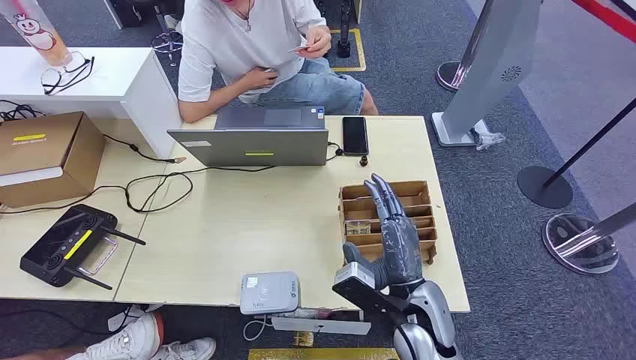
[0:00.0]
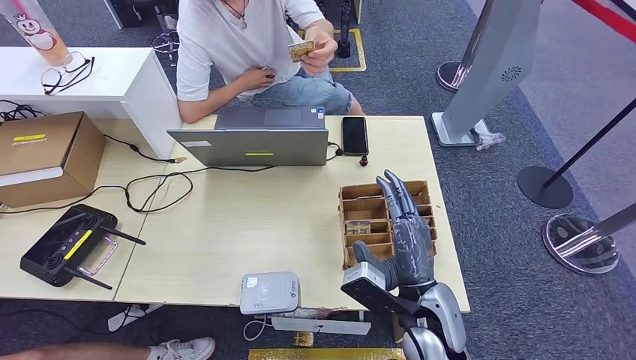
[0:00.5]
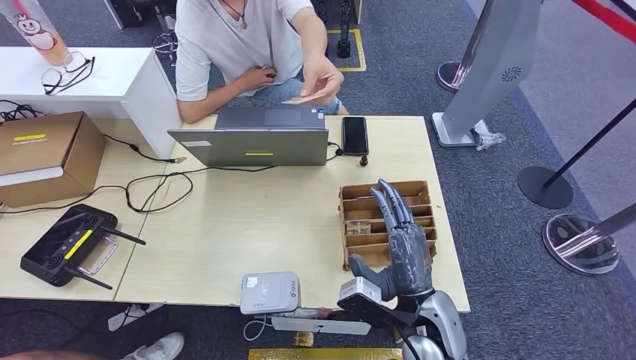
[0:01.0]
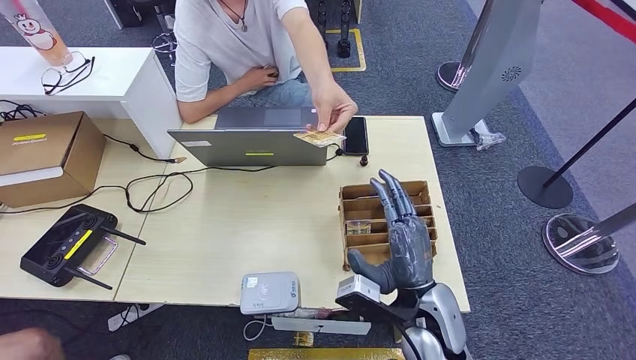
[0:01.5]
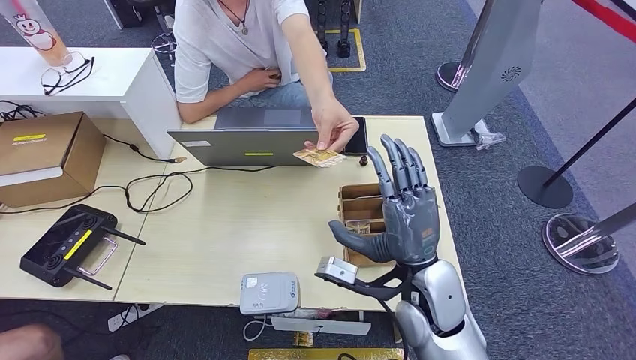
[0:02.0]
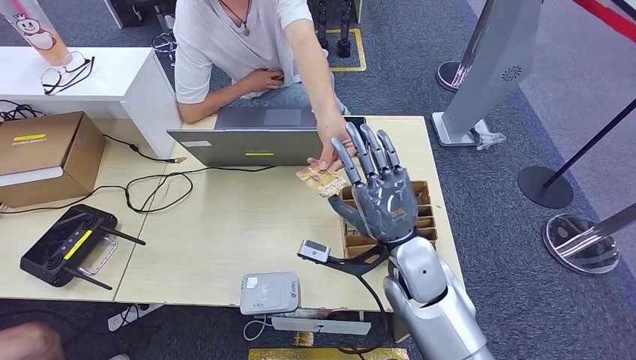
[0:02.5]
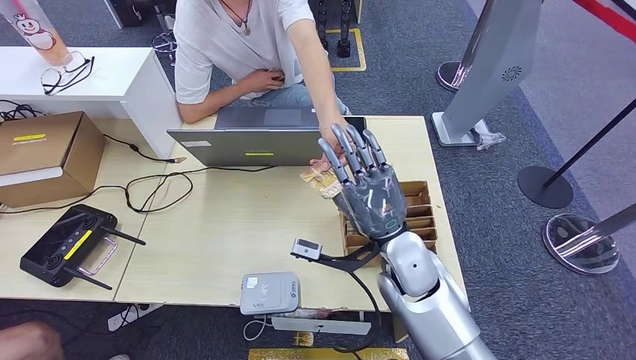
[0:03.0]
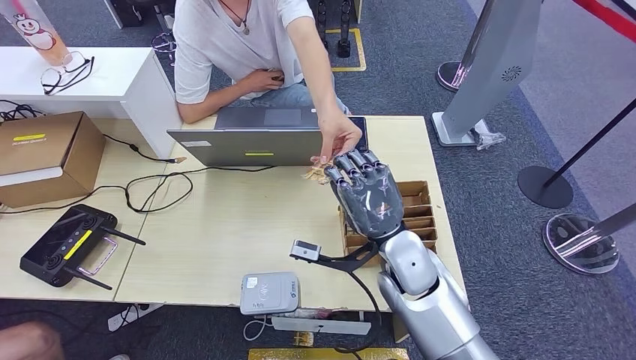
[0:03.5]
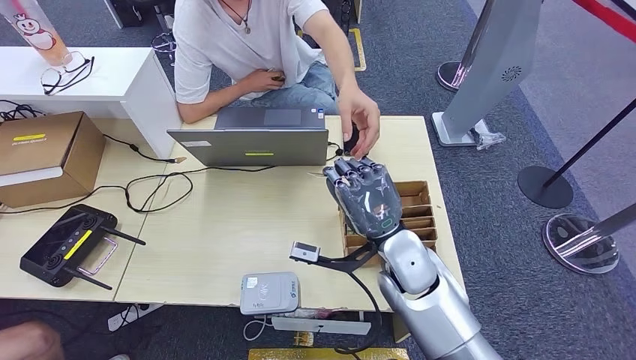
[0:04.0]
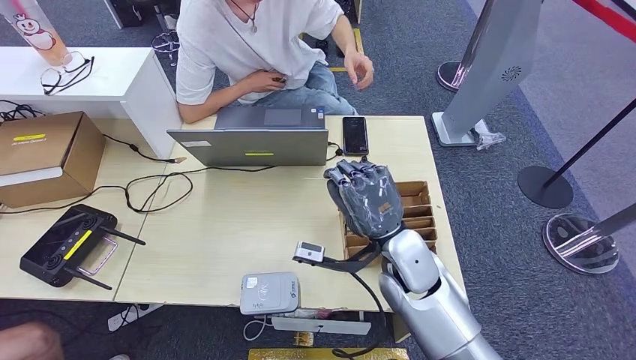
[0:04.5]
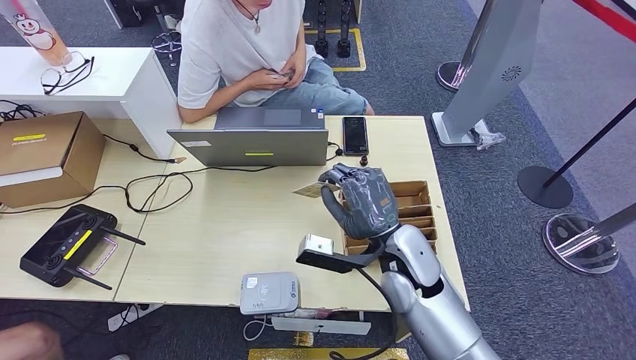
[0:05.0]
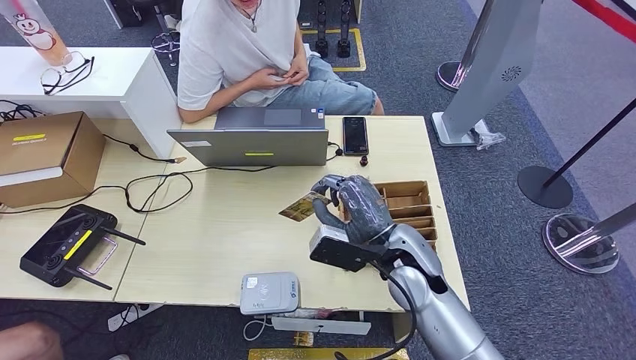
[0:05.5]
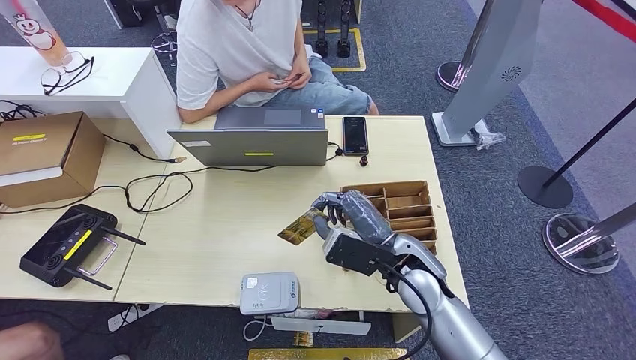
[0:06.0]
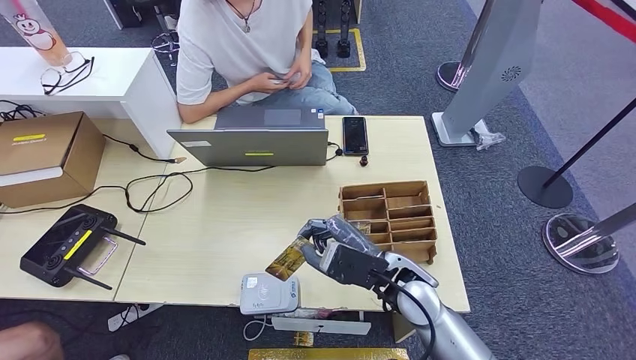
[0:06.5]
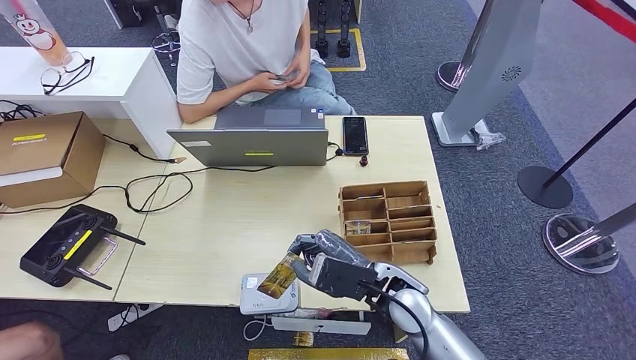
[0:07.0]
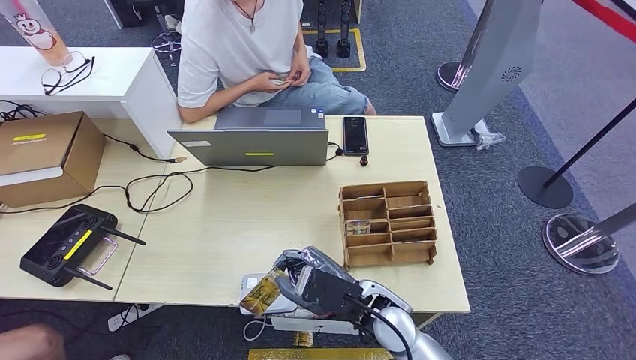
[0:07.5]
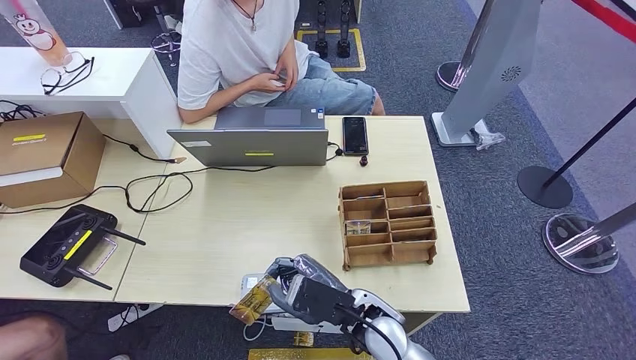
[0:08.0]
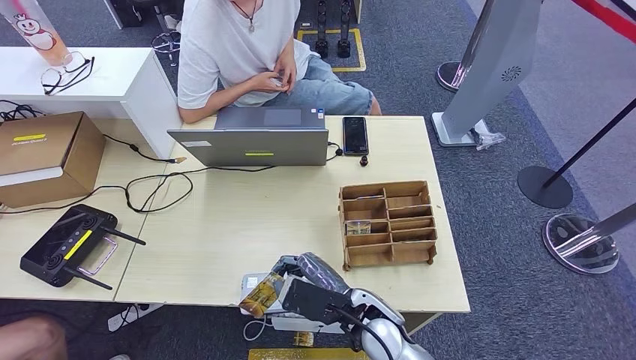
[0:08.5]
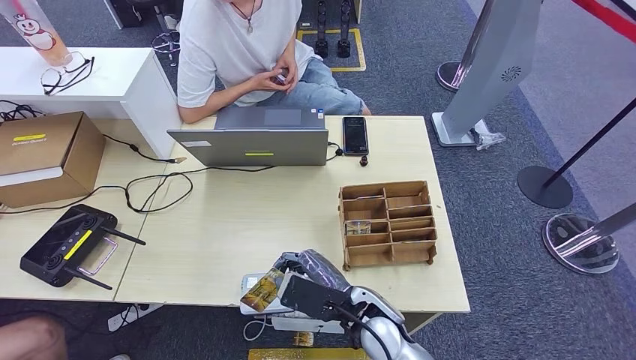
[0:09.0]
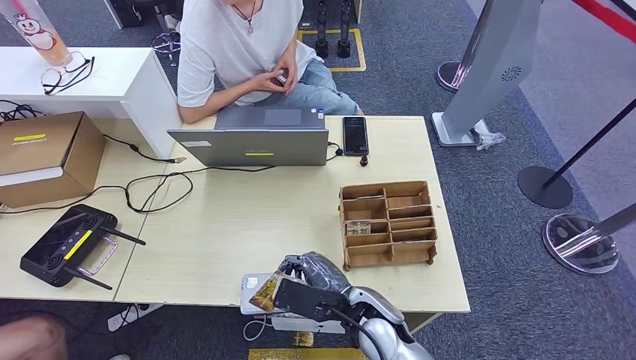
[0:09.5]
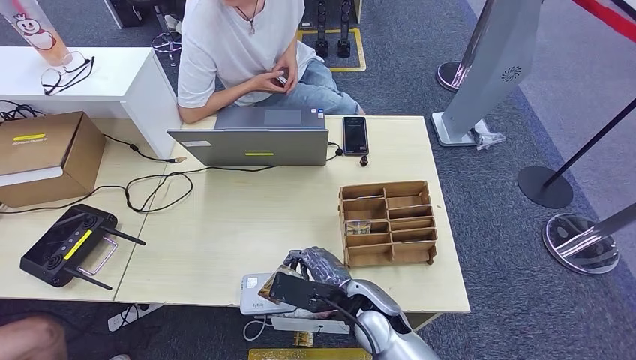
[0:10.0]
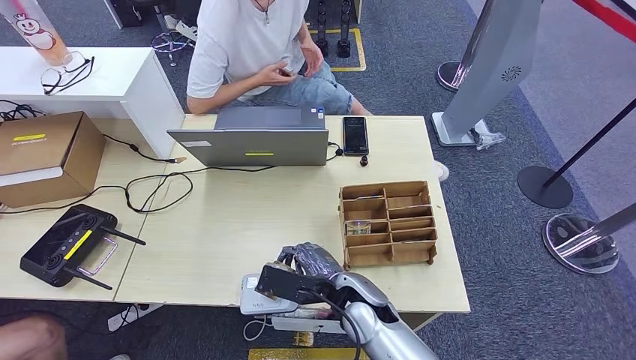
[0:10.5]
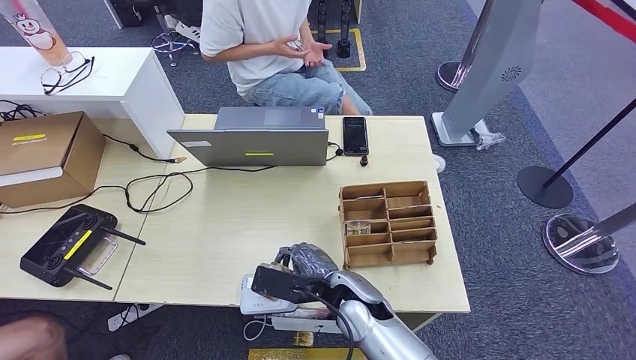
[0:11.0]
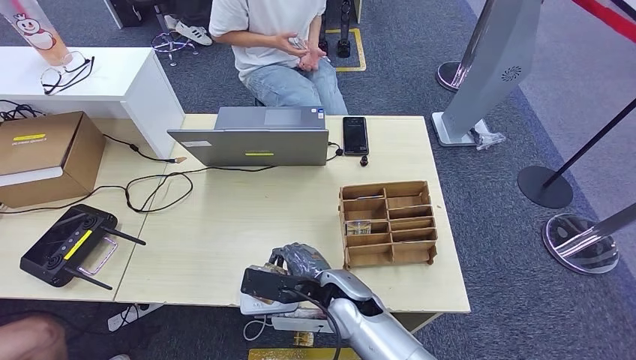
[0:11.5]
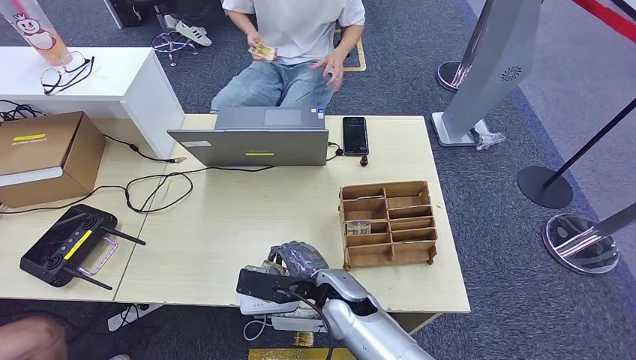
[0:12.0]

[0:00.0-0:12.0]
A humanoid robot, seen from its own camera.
Step, 0:00.0 to 0:04.0: Take the ID card from the person's hand.
0:02.0 to 0:04.0: The right hand shifts some 5 cm forward.
0:06.0 to 0:08.0: The right hand shifts approximately 10 cm backward, to the left and downward.
0:10.0 to 0:12.0: The right hand moves roughly 5 cm.

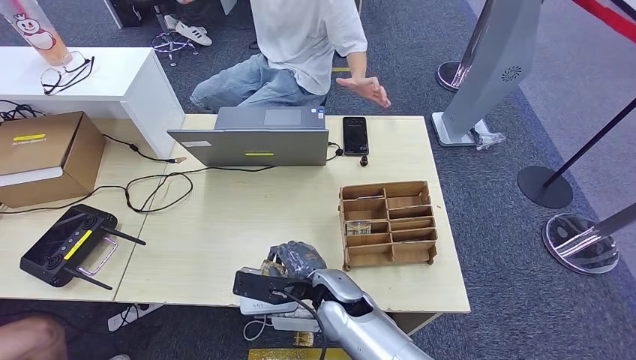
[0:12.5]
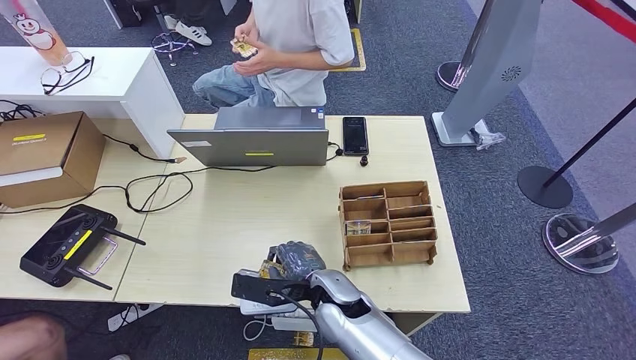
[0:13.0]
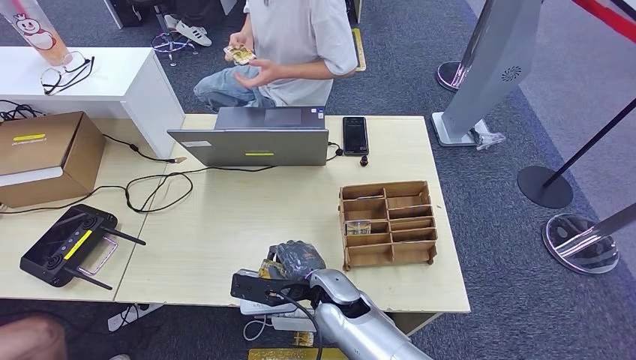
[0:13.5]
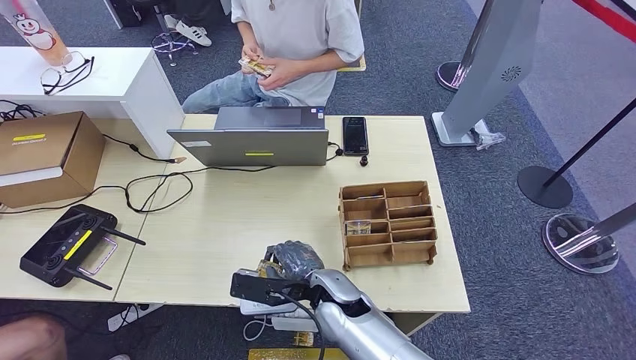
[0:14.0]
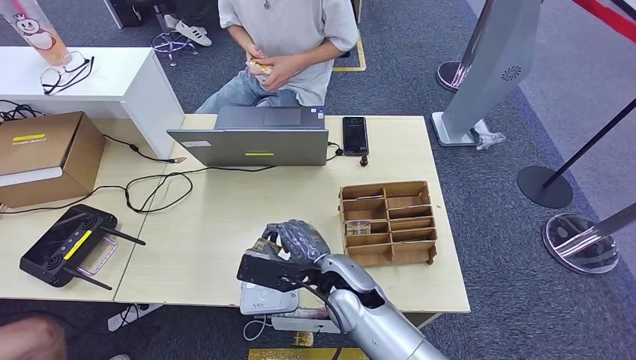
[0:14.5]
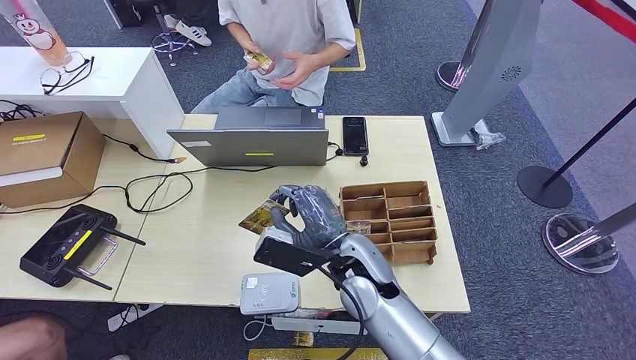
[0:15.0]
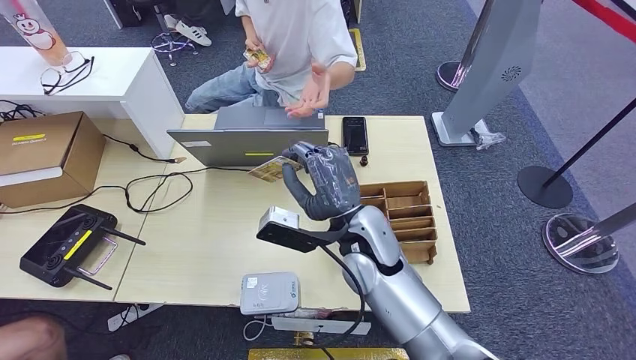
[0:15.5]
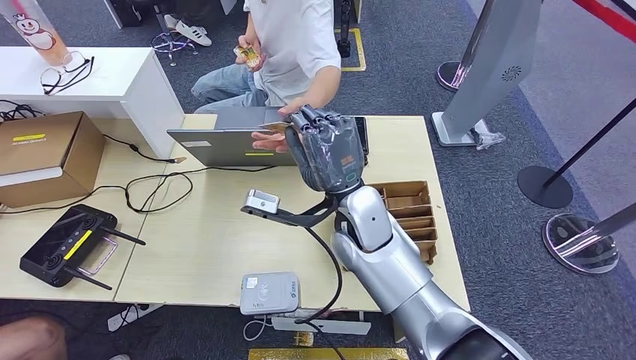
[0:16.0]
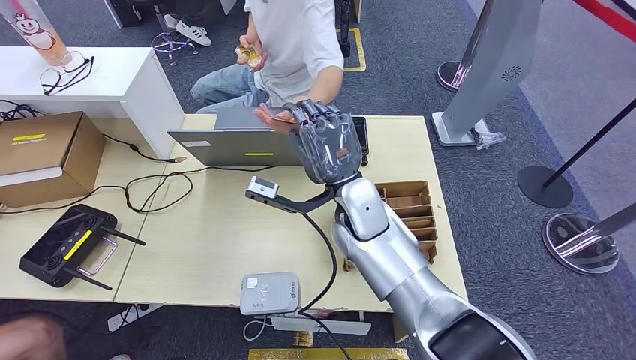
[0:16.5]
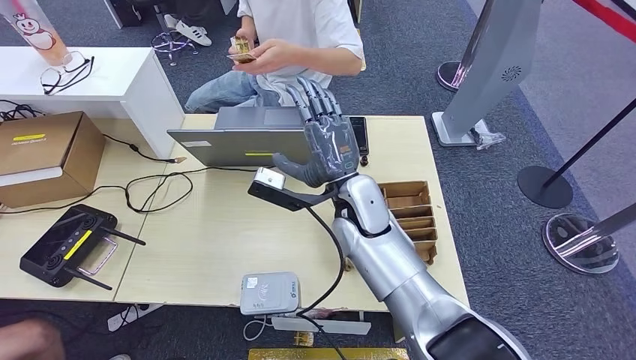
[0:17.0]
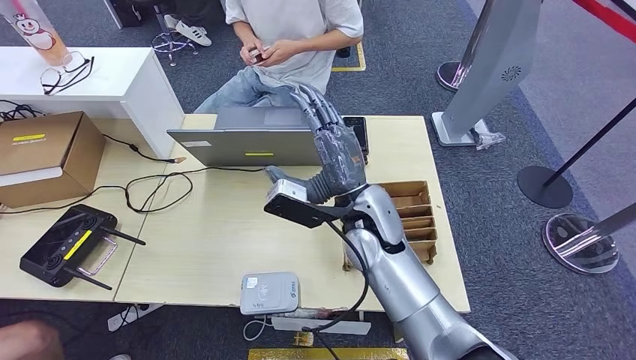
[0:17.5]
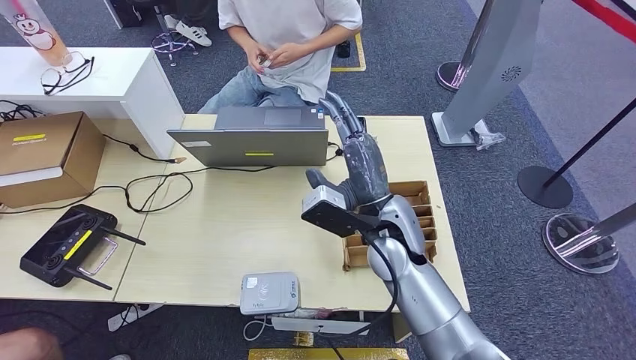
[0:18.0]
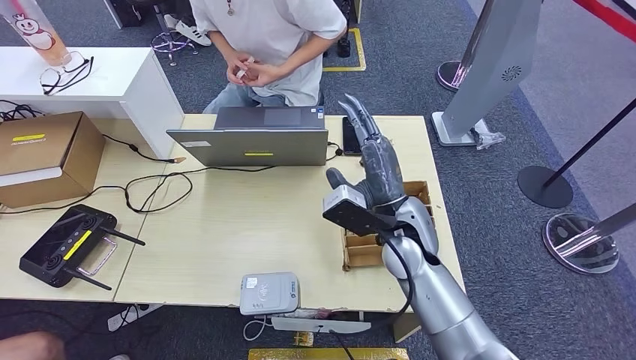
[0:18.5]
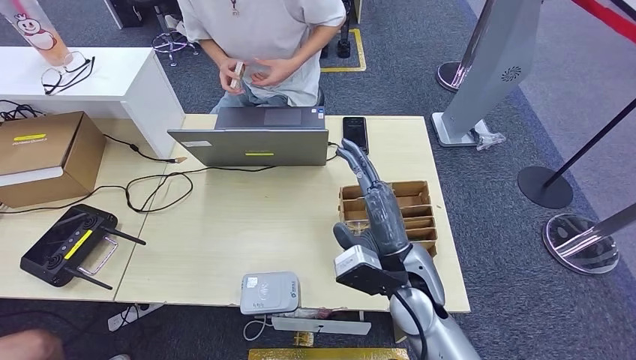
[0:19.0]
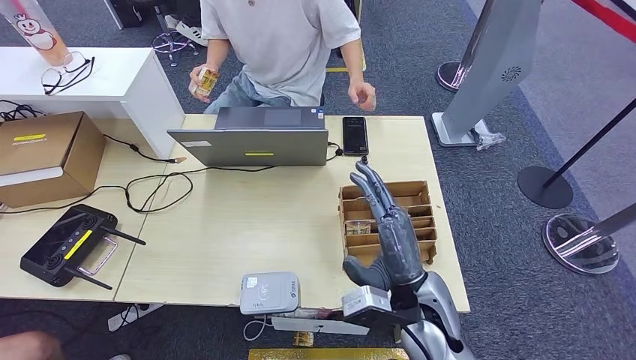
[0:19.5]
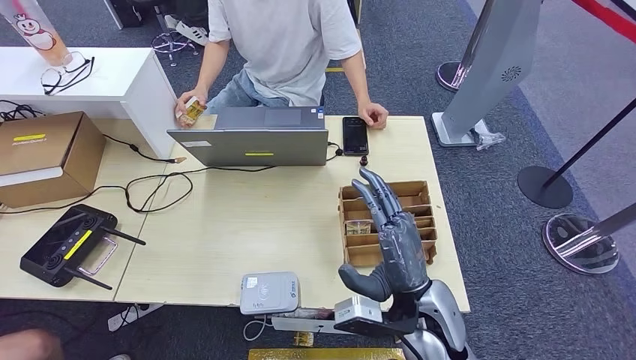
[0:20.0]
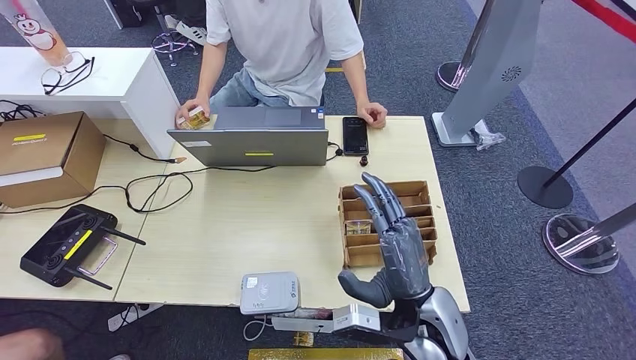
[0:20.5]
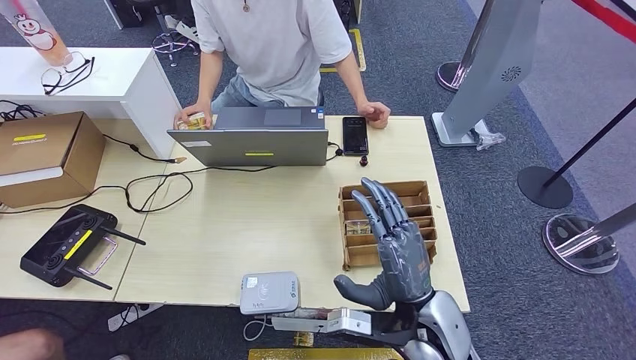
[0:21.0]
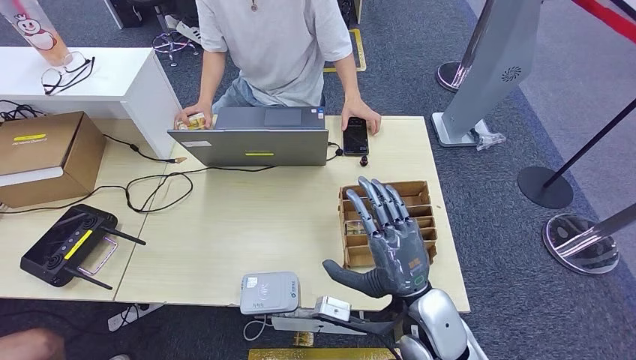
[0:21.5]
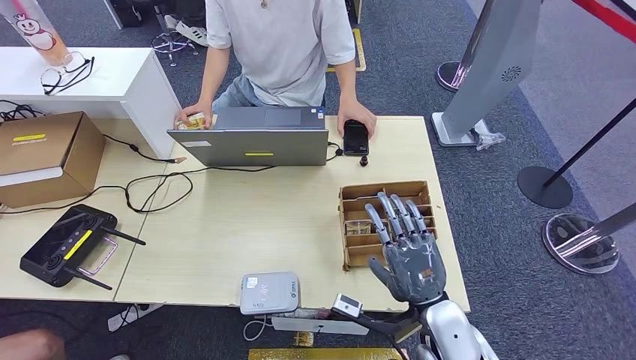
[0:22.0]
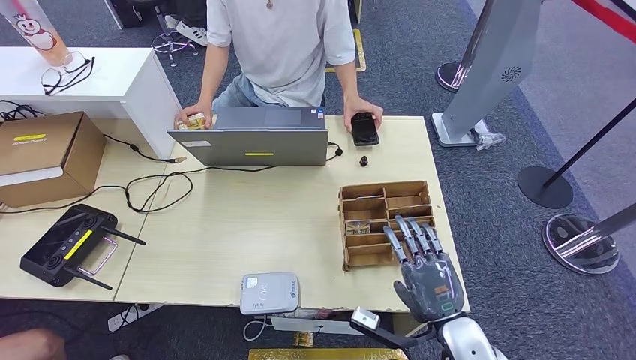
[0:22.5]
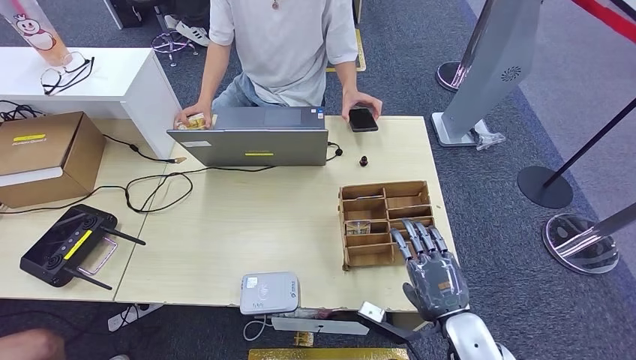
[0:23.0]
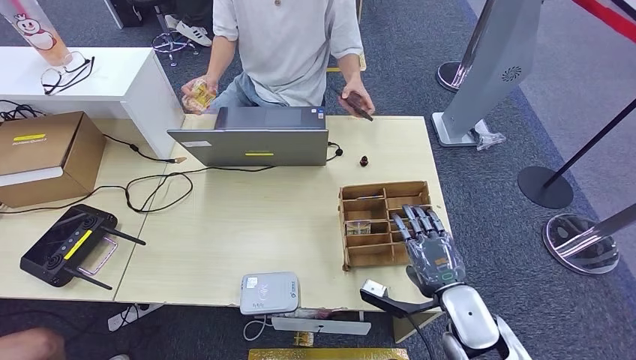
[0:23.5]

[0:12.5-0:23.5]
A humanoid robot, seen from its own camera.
Step, 0:12.5 to 0:17.0: Hand the ID card to the person.
0:12.5 to 0:14.5: There are only small adjustments of the hands.
0:14.5 to 0:16.0: The right hand is displaced upward and forward by about 15 cm.
0:16.0 to 0:18.0: The right hand shifts by about 5 cm.
0:18.0 to 0:20.0: The right hand travels backward and downward by roughly 15 cm.
0:21.5 to 0:23.5: The right hand moves to the right, about 10 cm.
